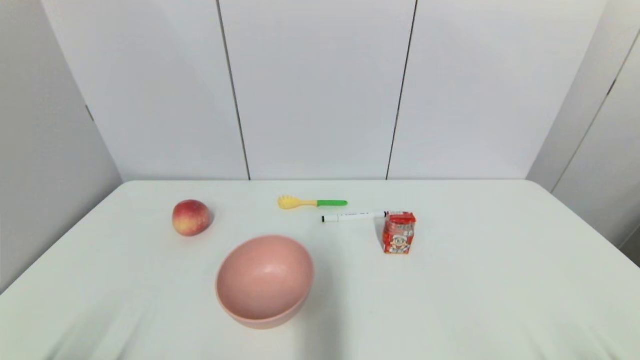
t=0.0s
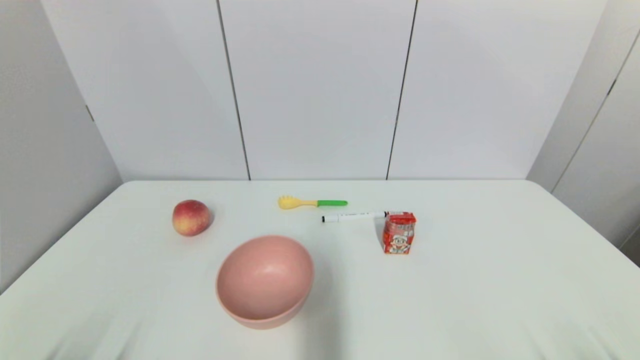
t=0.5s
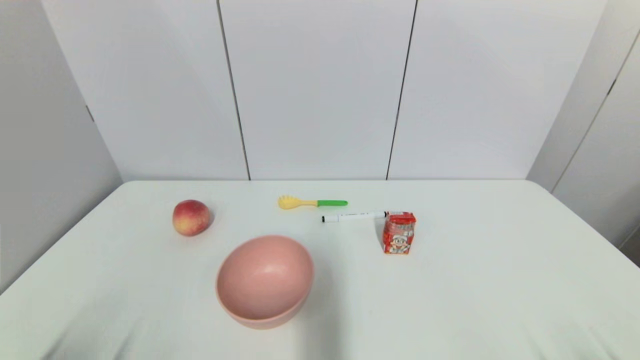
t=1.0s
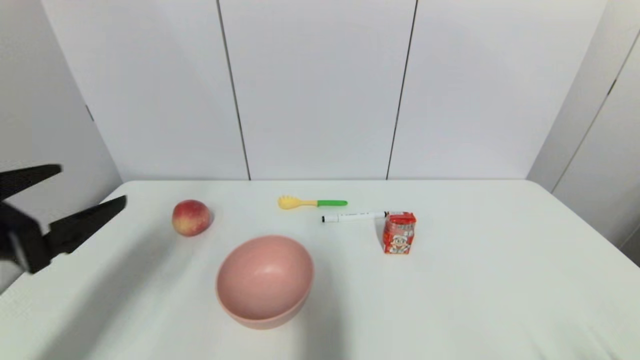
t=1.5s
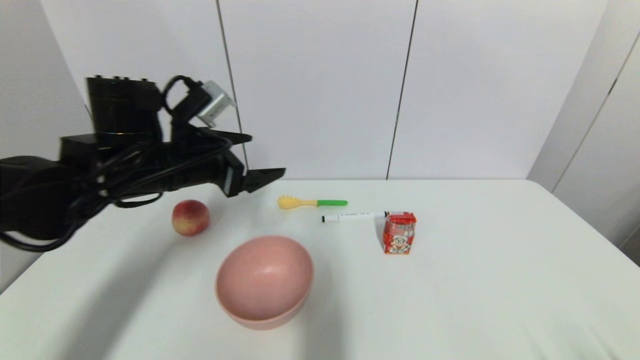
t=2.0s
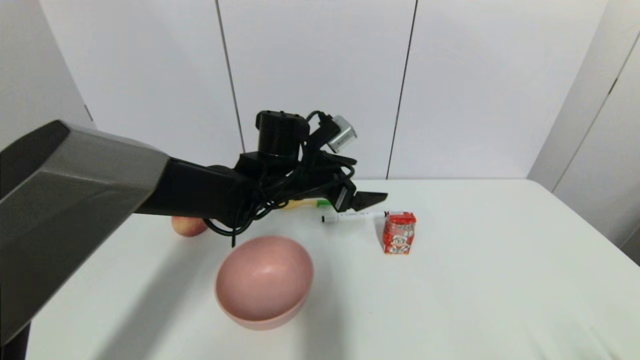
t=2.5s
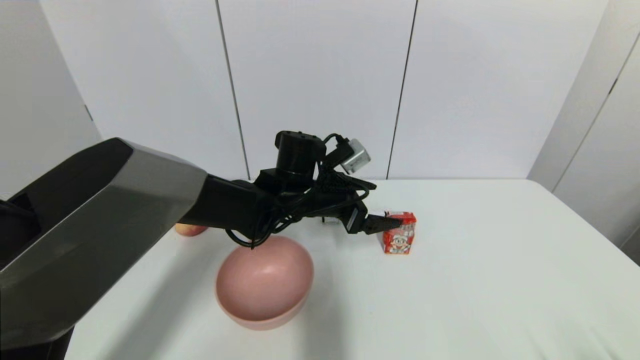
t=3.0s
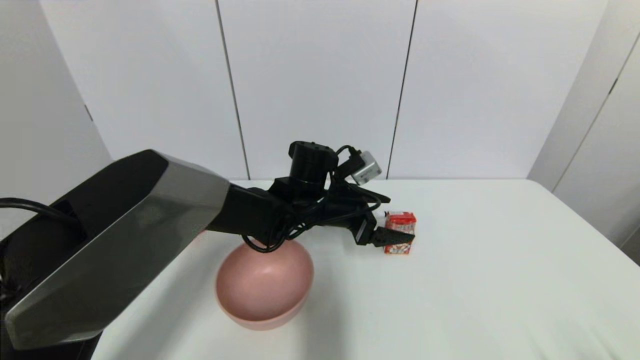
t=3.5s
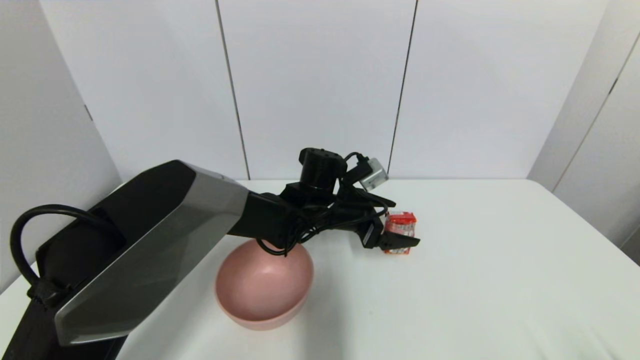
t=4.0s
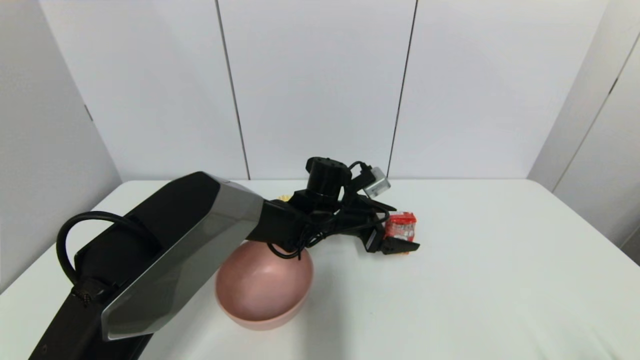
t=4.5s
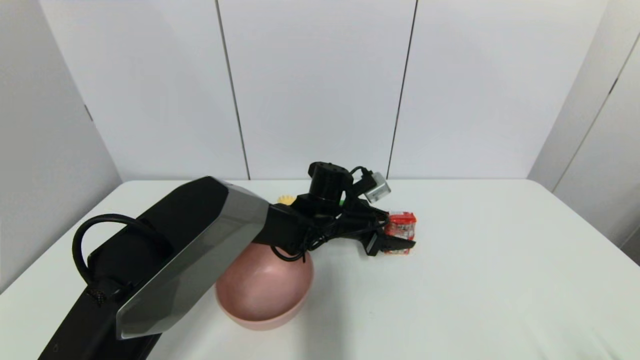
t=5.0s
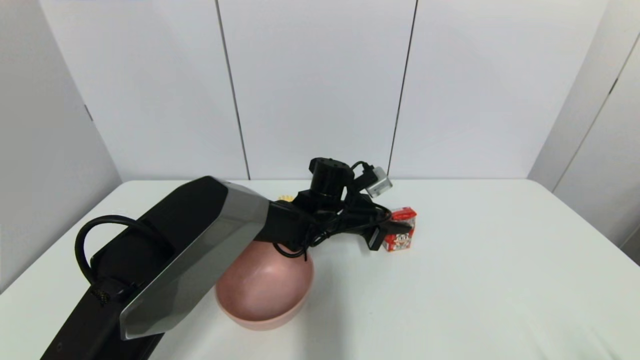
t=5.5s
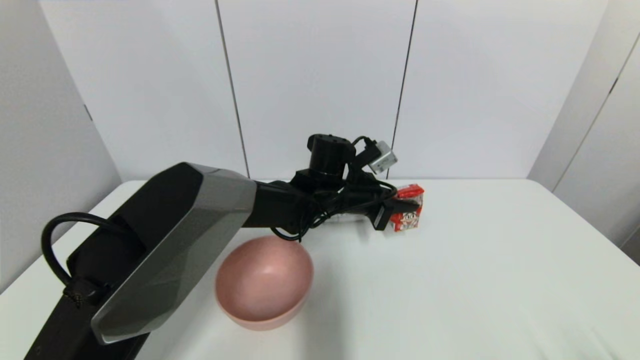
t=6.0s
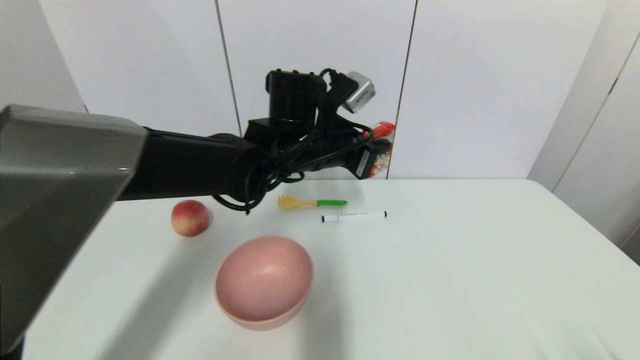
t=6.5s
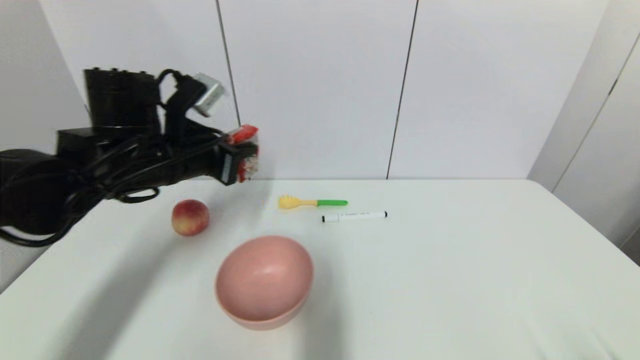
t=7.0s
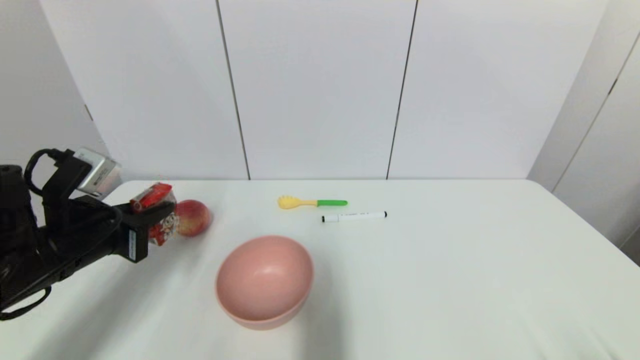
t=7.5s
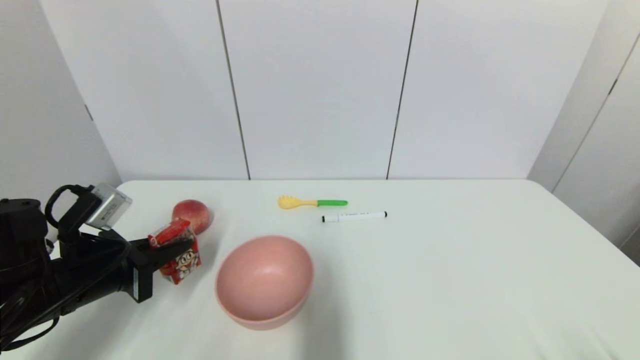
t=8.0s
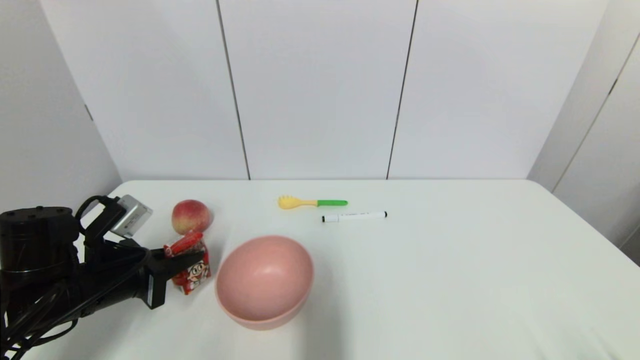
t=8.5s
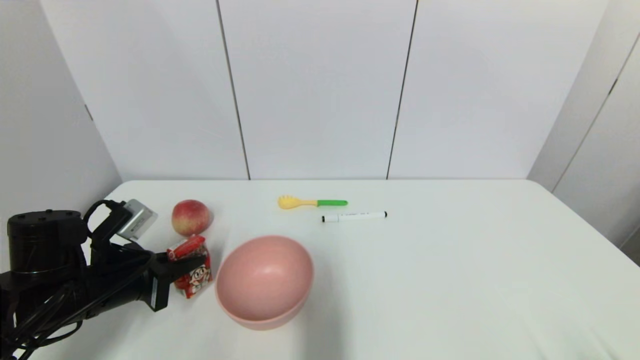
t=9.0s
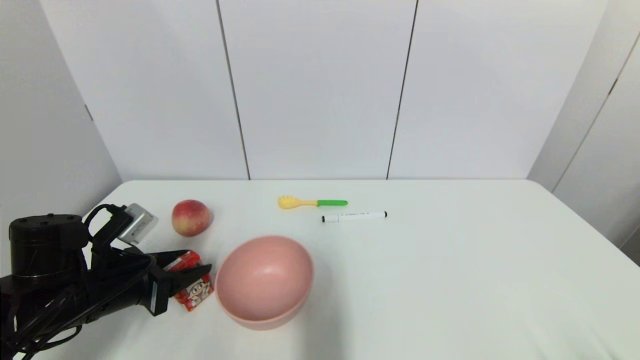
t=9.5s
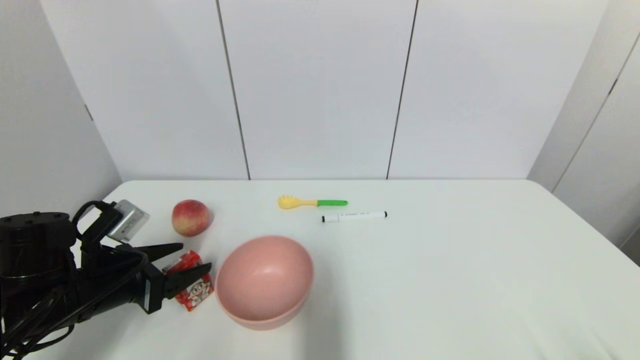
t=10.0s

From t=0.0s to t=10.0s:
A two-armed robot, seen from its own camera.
Step, from t=1.5s to t=5.0s: Grasp the wangzai milk with left gripper.
Step, from t=5.5s to t=9.0s: Place the wangzai milk on the table with left gripper.
From t=0.0s to t=2.0s: The left gripper moves forward, upward and to the right, roughly 40 cm.
From t=2.0s to t=4.0s: The left gripper goes roughly 20 cm to the right and downward.
From t=4.0s to t=6.0s: The left gripper closes.
From t=6.0s to t=8.0s: The left gripper goes approximately 35 cm to the left and backward.
From t=8.0s to t=10.0s: The left gripper opens its fingers.

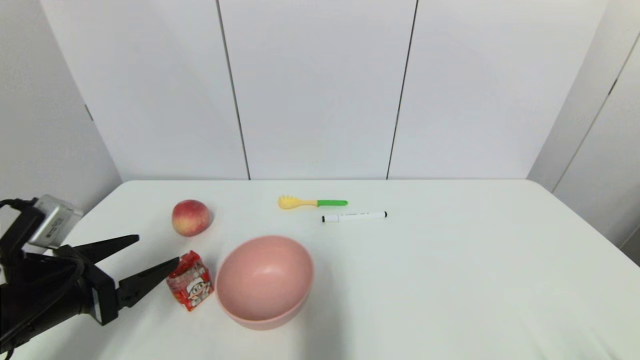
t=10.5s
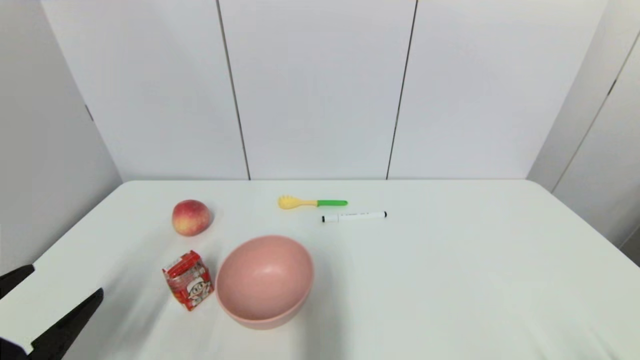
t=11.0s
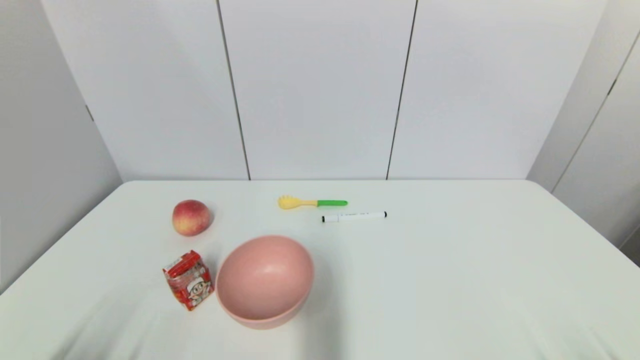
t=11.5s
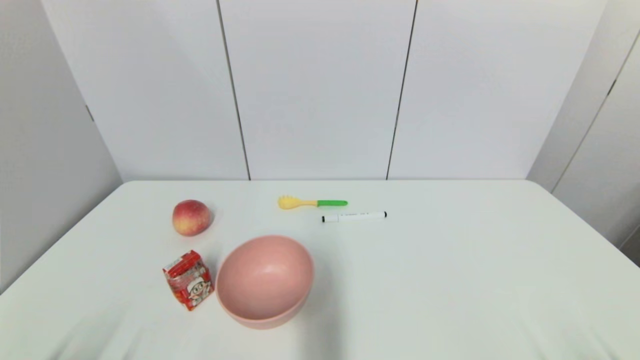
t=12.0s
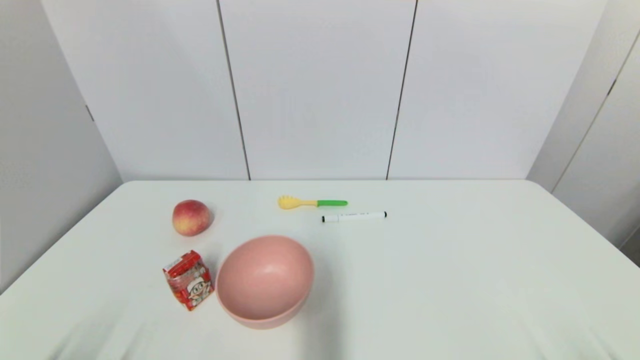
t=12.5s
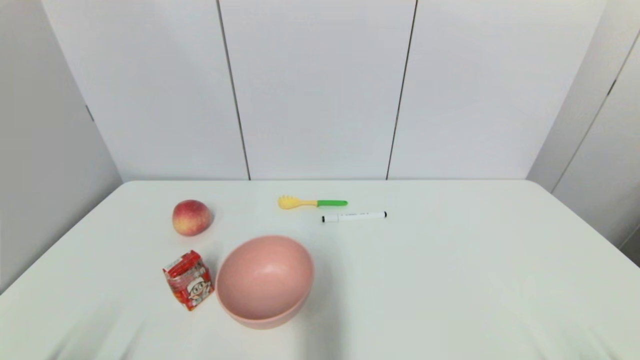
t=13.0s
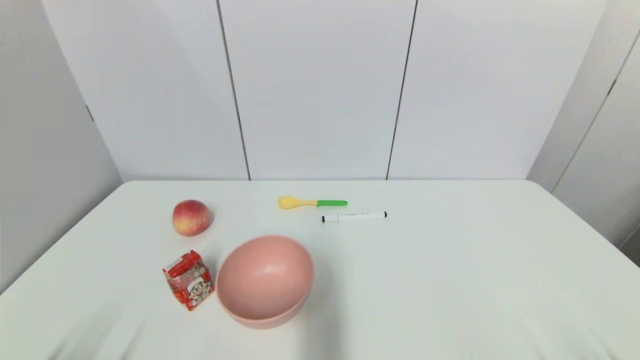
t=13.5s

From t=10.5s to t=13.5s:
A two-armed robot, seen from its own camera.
From t=10.5s to t=12.0s: The left gripper is displaced backward and downward by about 20 cm.
